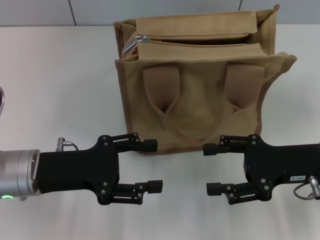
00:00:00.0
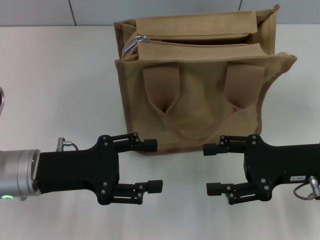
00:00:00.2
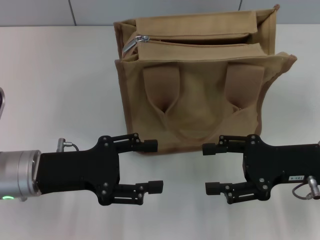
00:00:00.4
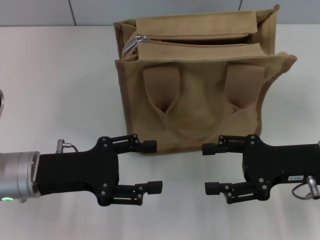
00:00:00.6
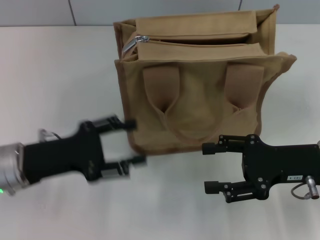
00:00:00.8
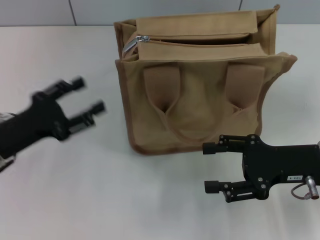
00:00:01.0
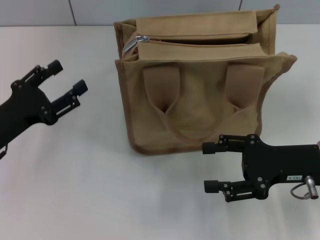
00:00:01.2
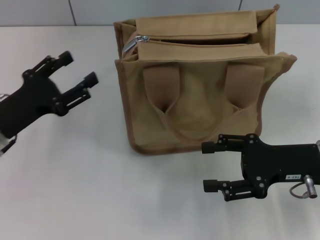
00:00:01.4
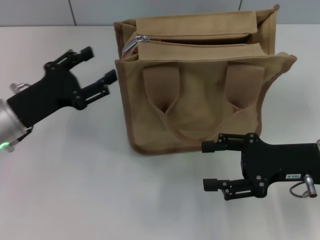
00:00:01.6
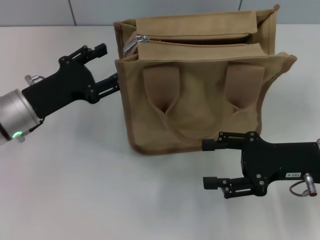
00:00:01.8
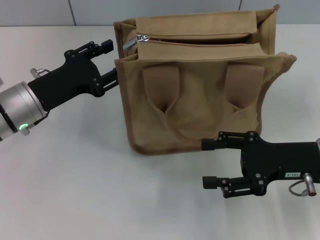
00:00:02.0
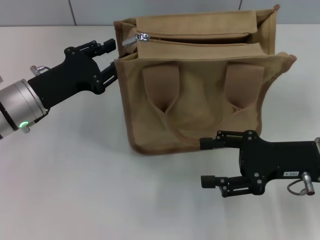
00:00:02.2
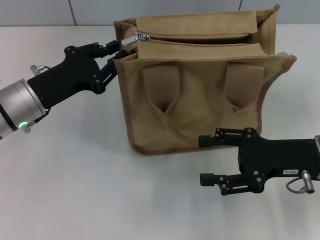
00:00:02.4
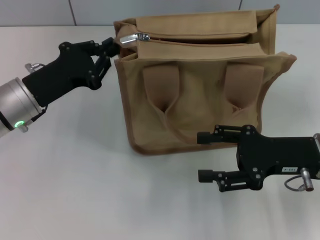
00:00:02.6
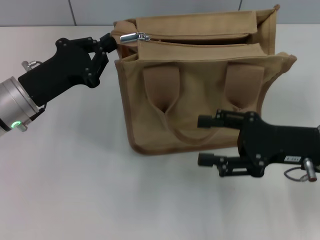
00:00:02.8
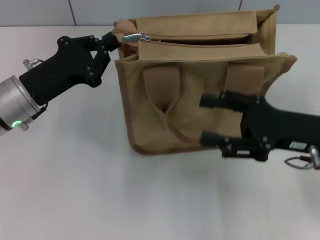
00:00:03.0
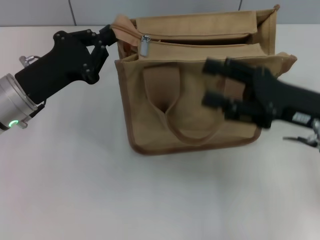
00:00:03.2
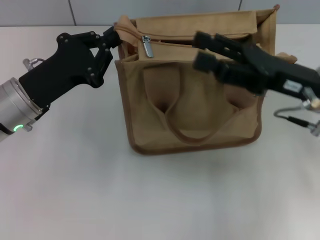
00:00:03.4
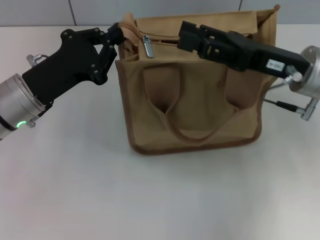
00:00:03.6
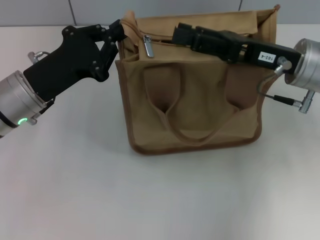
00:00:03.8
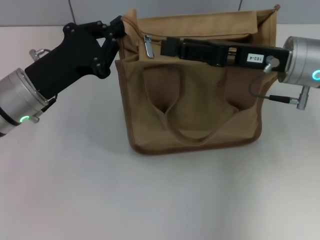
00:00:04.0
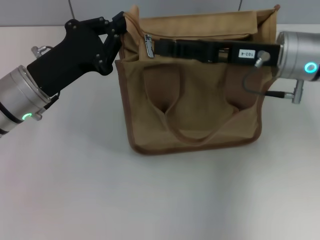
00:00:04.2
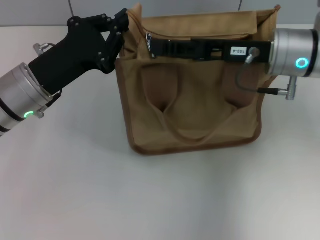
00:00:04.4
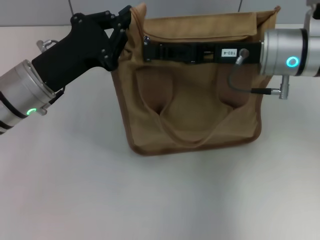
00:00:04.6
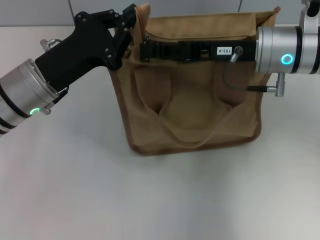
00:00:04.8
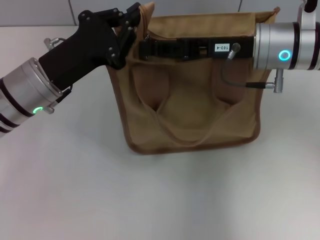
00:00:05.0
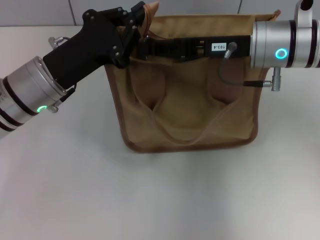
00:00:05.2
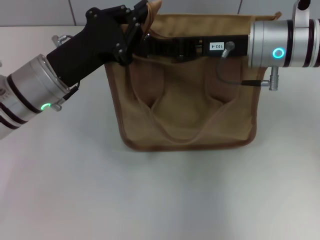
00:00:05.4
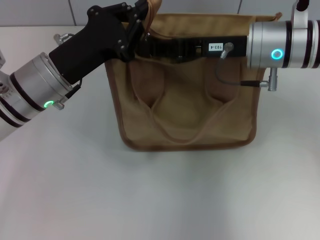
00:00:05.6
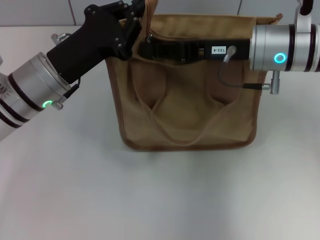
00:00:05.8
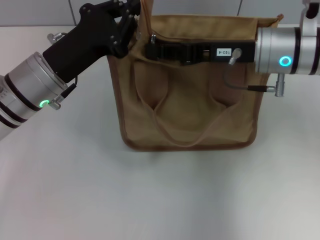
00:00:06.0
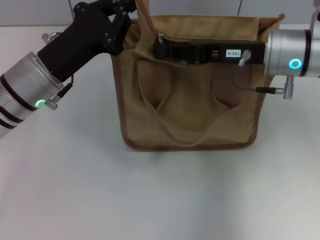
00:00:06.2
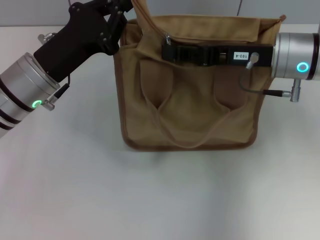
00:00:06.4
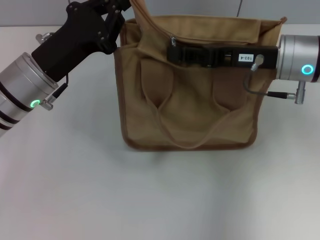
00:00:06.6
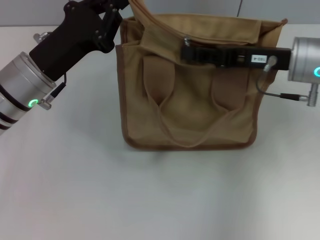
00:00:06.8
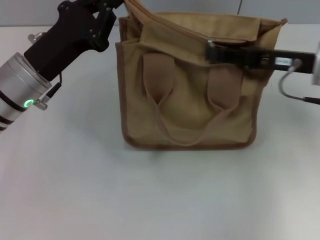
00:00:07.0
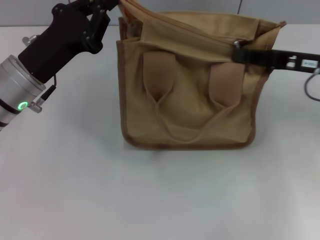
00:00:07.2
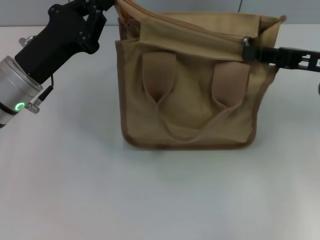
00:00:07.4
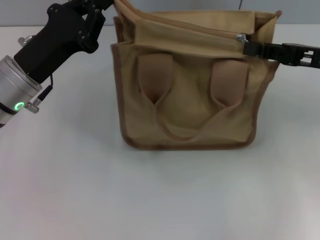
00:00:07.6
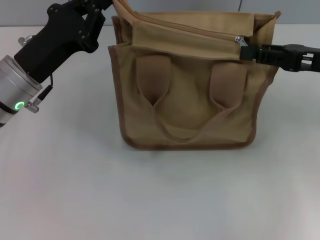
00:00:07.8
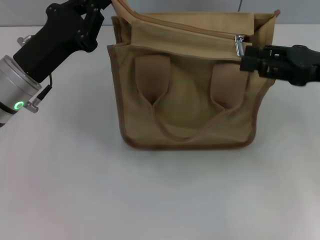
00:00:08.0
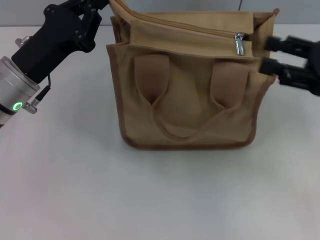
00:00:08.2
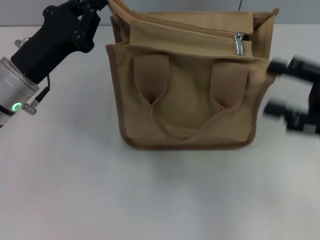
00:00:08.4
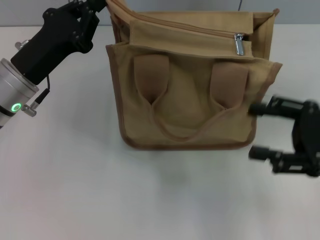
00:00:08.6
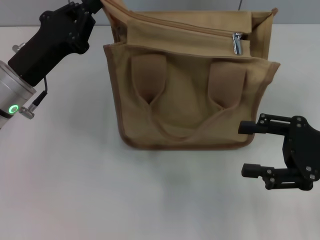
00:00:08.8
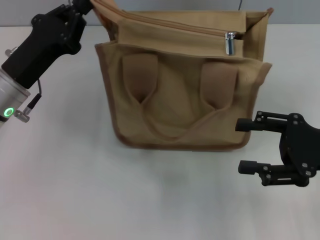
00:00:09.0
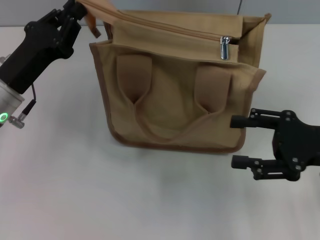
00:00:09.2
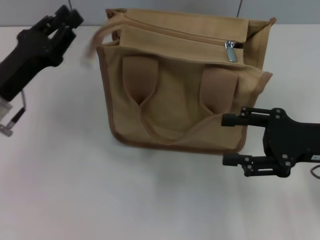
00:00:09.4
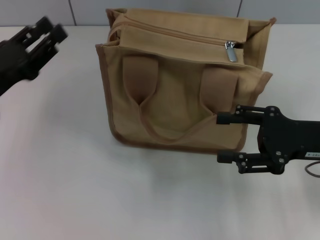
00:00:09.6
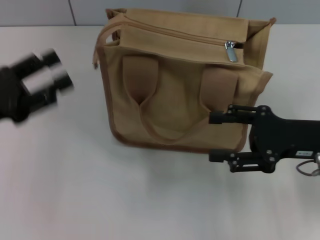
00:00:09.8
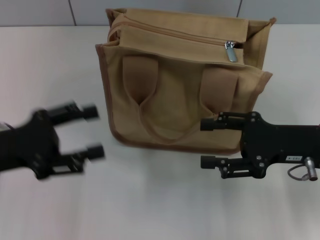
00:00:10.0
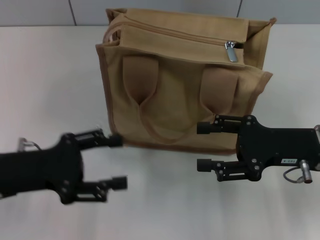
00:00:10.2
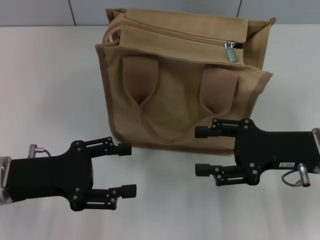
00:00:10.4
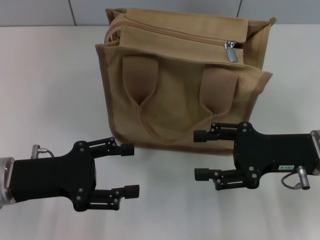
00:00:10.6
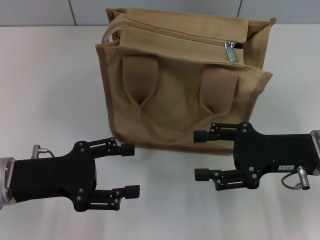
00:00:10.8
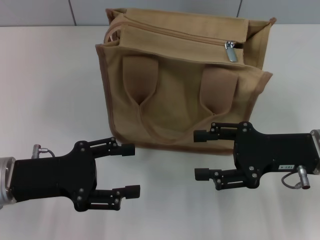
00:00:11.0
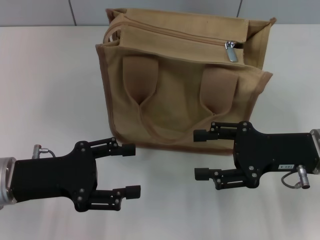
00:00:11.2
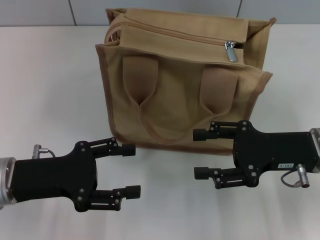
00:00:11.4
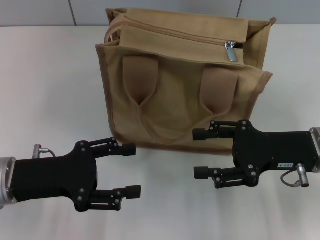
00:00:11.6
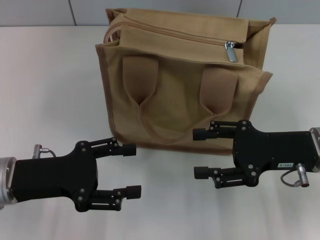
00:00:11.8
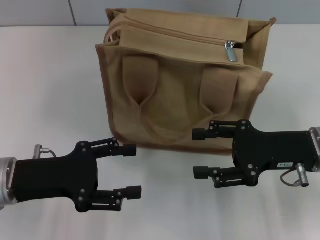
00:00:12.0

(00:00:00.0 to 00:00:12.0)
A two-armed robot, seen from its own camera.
Step, 00:00:00.0 - 00:00:07.8: Pull up the zipper with your right hand.
Step, 00:00:08.2 - 00:00:09.2: Grab the zipper with your left hand.
00:00:00.0 - 00:00:01.6: The left gripper ends up some 5 cm from where it was.
00:00:01.6 - 00:00:03.0: The left gripper closes its fingers.
00:00:03.0 - 00:00:04.4: The right gripper shifts approximately 15 cm forward, to the left and upward, and closes its fingers.
00:00:04.4 - 00:00:06.0: The right gripper closes.
00:00:06.0 - 00:00:07.6: The right gripper is displaced to the right by some 15 cm.
00:00:07.6 - 00:00:09.0: The right gripper goes approximately 10 cm backward, and opens up.
00:00:09.0 - 00:00:10.4: The left gripper travels backward by roughly 10 cm, and opens, while the right gripper shifts by some 5 cm.
00:00:10.4 - 00:00:12.0: The two grippers keep their place.

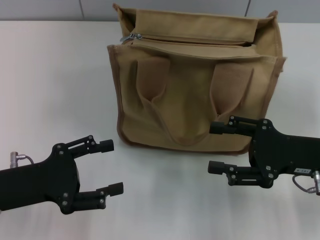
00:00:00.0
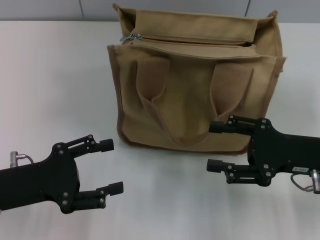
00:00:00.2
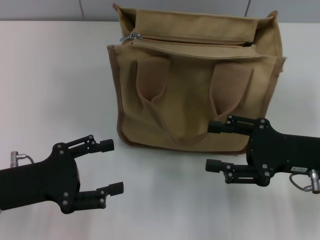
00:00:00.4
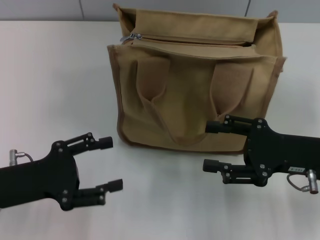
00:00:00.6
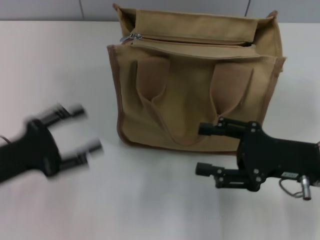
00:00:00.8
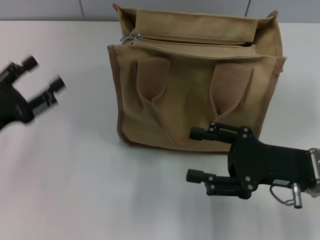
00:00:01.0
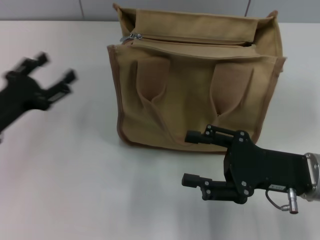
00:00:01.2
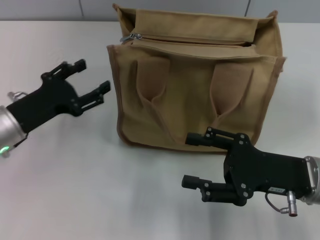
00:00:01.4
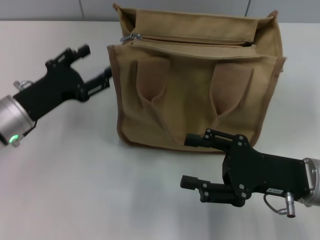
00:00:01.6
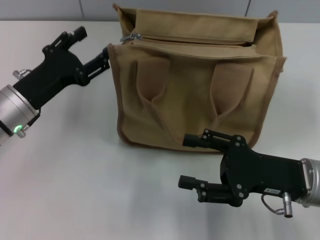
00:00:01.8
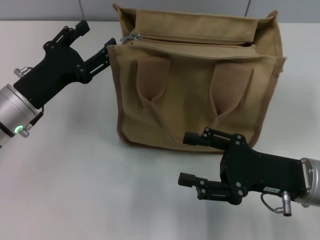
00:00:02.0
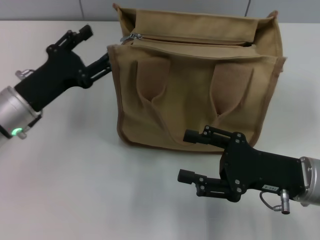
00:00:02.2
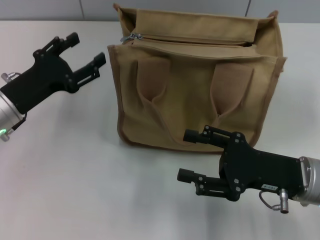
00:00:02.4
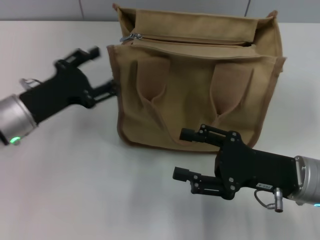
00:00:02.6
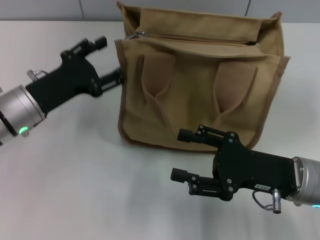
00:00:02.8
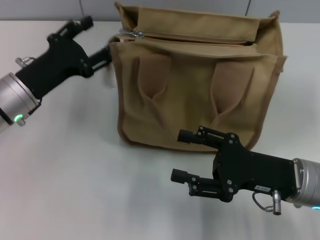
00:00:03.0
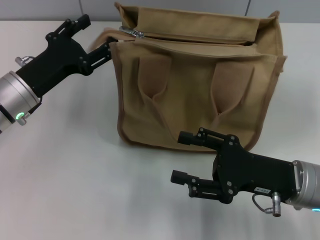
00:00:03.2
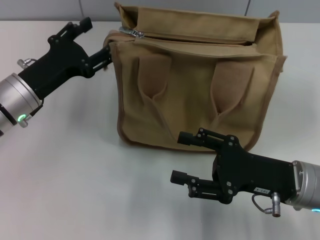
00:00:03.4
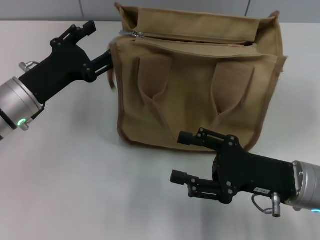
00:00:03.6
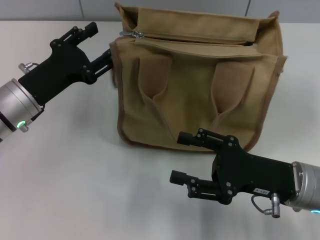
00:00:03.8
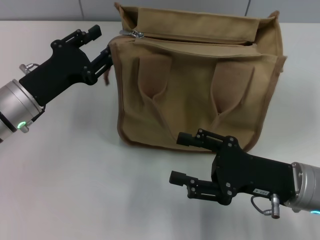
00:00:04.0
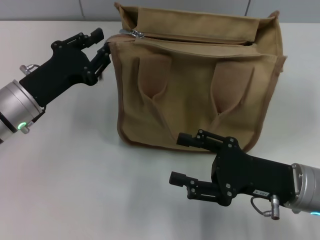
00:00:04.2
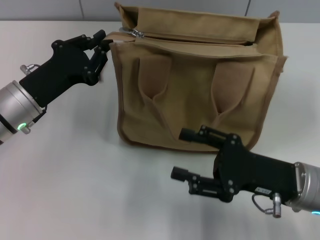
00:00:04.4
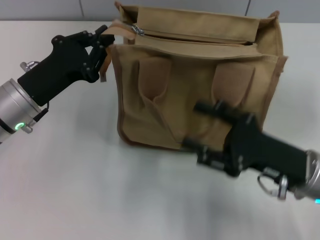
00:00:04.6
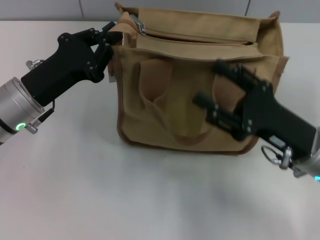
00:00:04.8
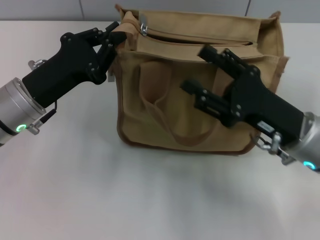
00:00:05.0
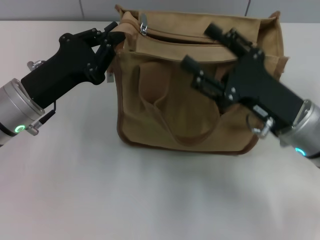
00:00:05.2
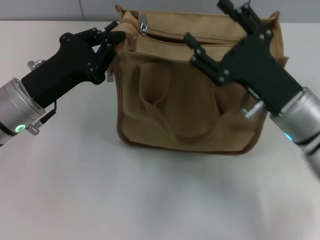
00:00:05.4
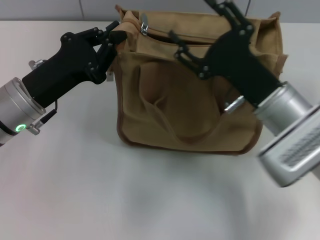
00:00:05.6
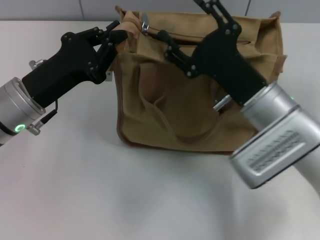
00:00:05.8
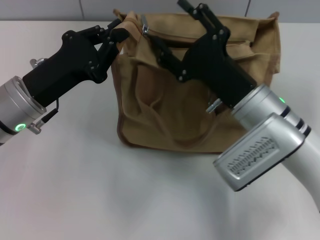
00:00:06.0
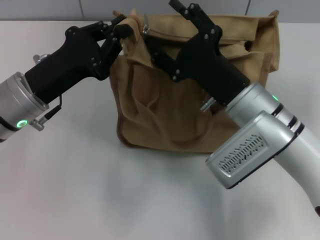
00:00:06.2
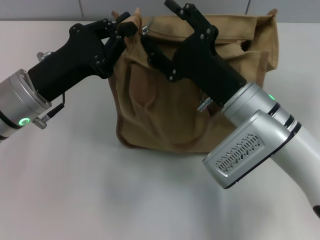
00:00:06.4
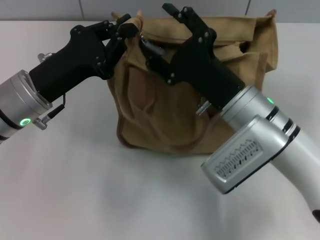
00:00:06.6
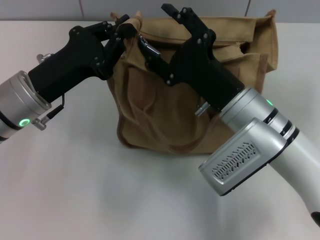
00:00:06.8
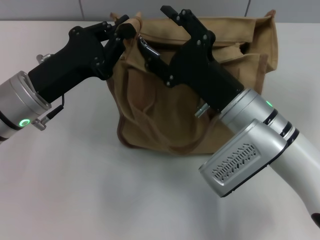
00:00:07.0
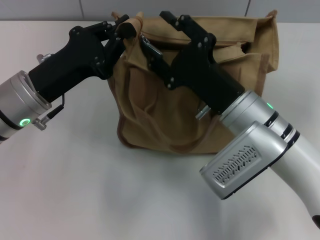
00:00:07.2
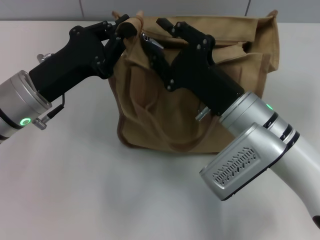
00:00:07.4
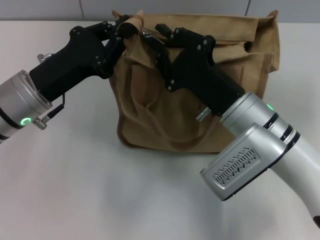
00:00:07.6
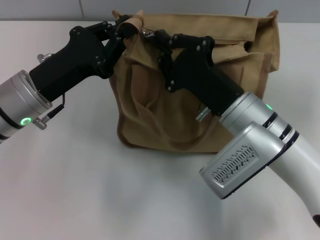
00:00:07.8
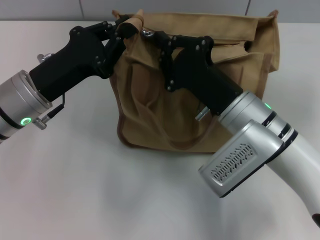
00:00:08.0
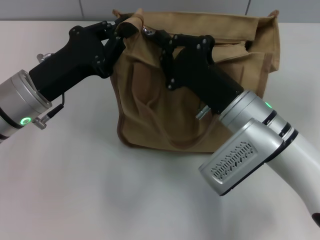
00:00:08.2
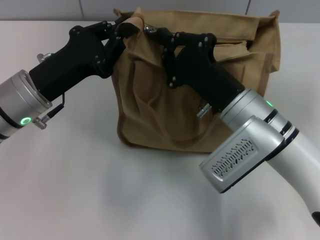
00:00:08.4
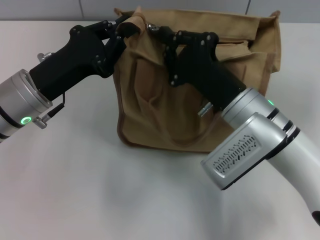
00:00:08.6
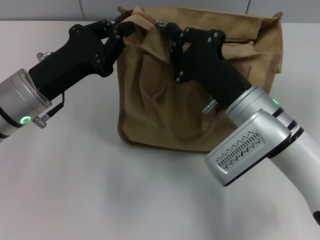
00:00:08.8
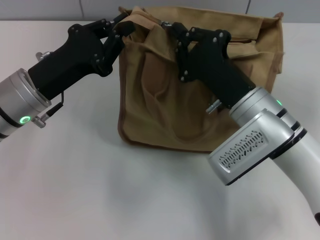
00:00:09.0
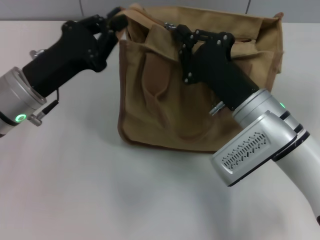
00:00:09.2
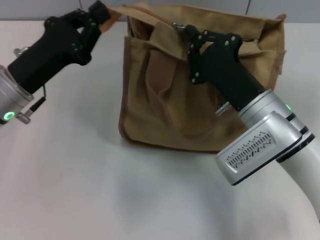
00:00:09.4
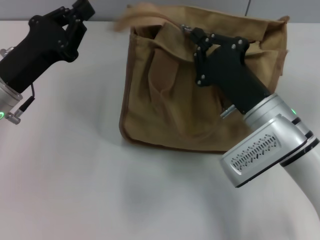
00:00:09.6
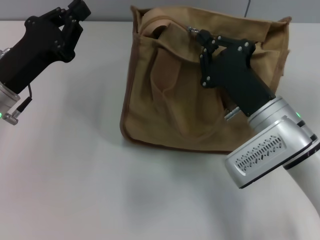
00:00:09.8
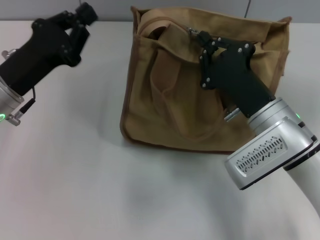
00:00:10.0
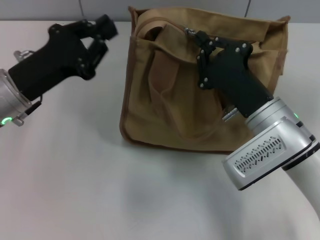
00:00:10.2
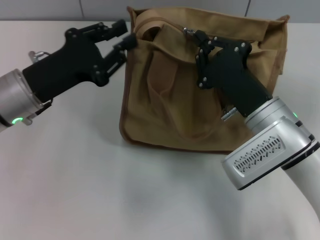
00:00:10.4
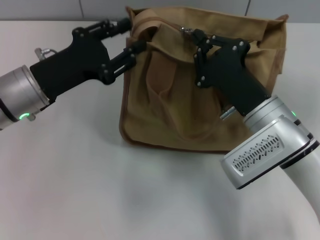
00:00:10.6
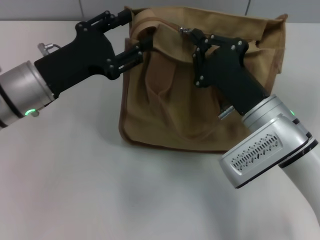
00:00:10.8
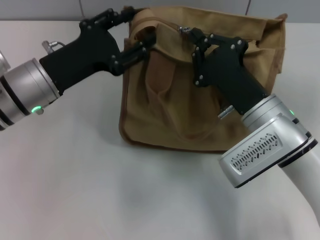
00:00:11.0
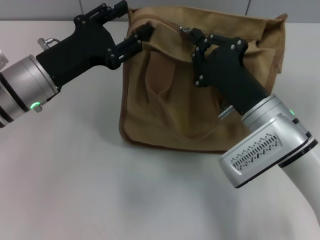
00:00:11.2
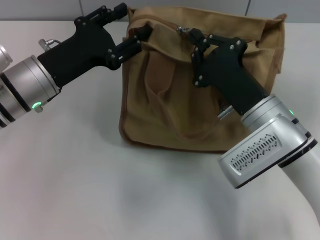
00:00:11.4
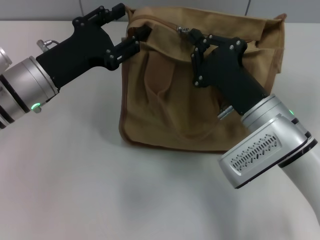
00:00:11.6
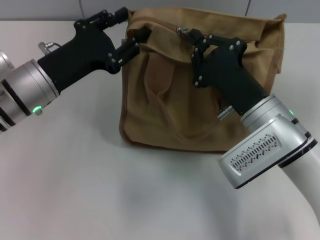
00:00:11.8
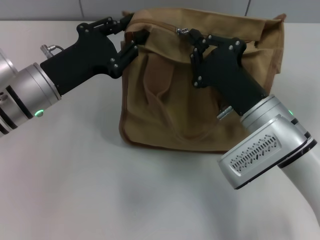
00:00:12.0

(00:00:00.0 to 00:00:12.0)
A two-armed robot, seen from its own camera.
00:00:00.0 - 00:00:01.6: The left gripper moves forward, about 10 cm.
00:00:01.6 - 00:00:03.0: There are only small adjustments of the grippers.
00:00:03.0 - 00:00:04.4: The left gripper closes.
00:00:04.4 - 00:00:06.0: The right gripper shifts roughly 10 cm to the left and forward.
00:00:06.0 - 00:00:07.6: The right gripper closes its fingers.
00:00:07.6 - 00:00:09.0: The right gripper closes up.
00:00:09.0 - 00:00:10.4: The grippers stay close to where they were, moving slightly.
00:00:10.4 - 00:00:12.0: The left gripper opens its fingers.
